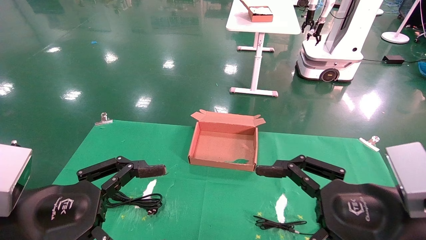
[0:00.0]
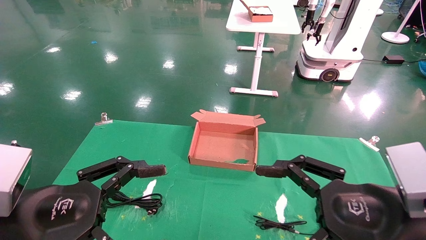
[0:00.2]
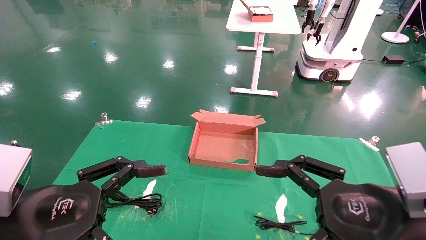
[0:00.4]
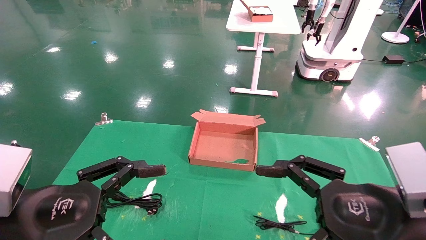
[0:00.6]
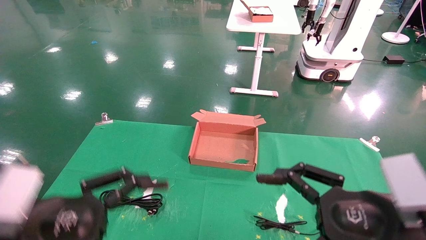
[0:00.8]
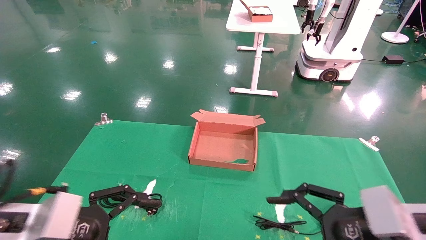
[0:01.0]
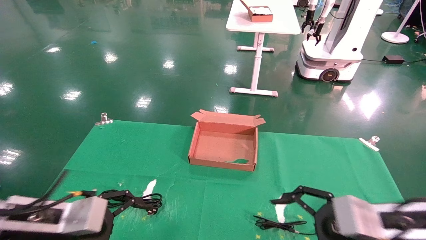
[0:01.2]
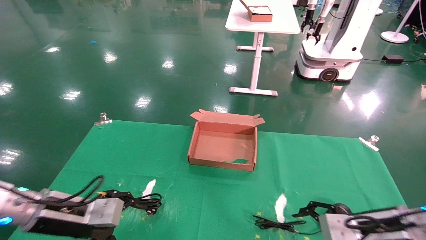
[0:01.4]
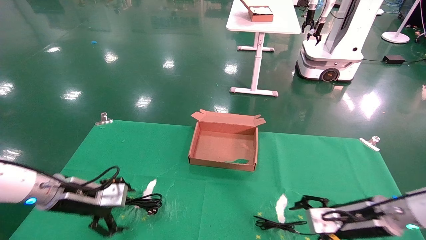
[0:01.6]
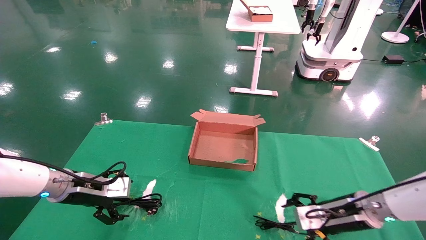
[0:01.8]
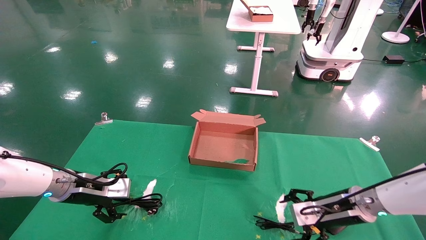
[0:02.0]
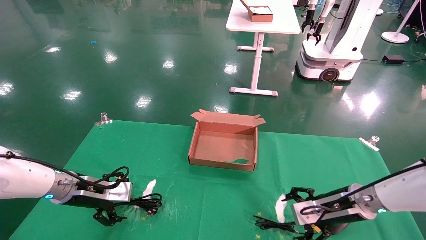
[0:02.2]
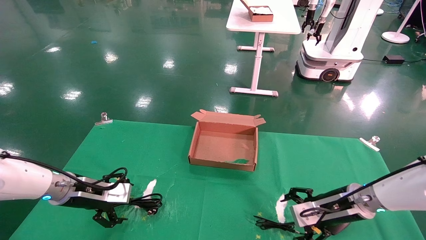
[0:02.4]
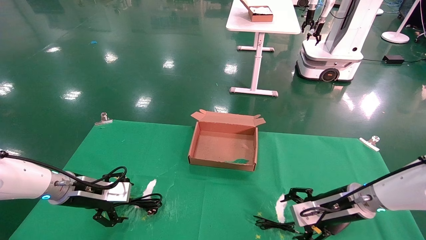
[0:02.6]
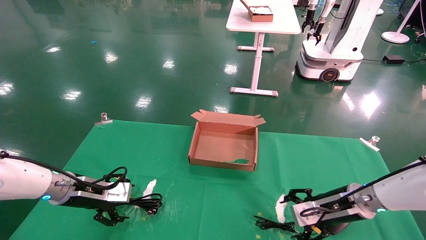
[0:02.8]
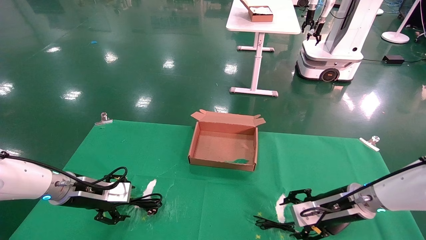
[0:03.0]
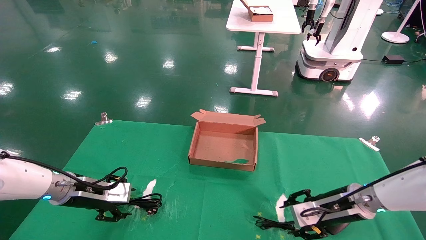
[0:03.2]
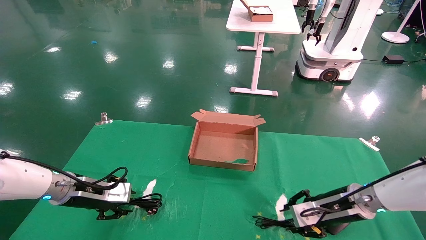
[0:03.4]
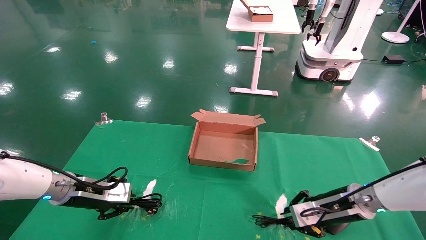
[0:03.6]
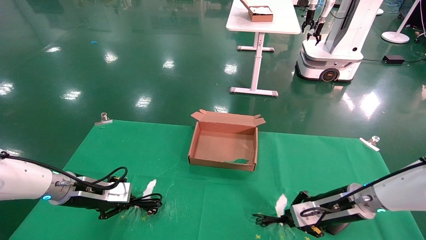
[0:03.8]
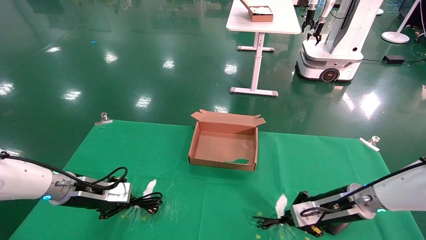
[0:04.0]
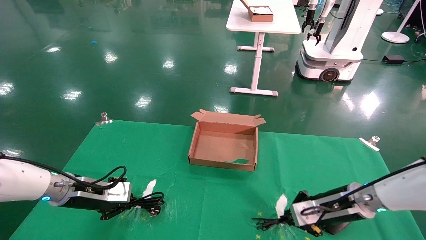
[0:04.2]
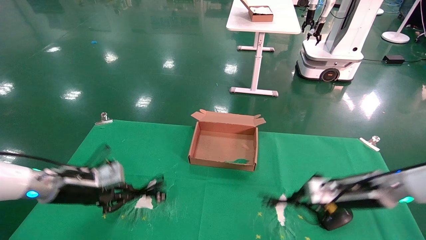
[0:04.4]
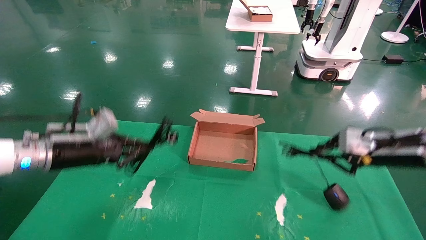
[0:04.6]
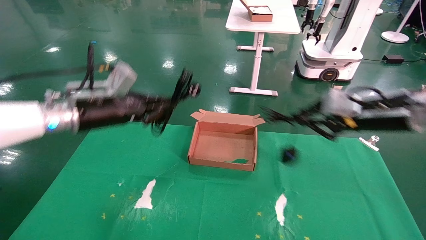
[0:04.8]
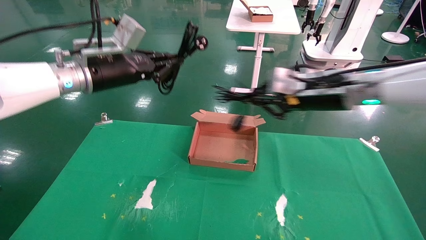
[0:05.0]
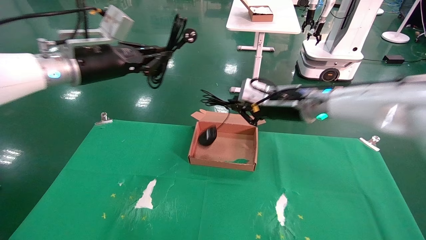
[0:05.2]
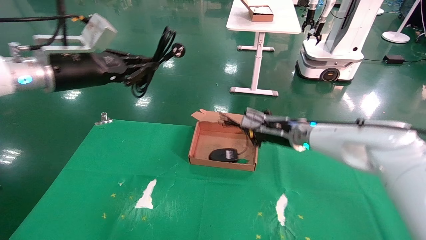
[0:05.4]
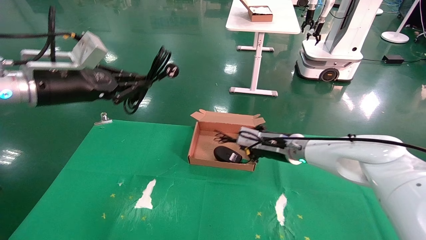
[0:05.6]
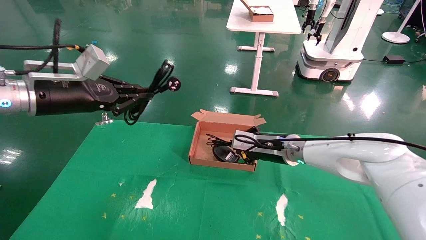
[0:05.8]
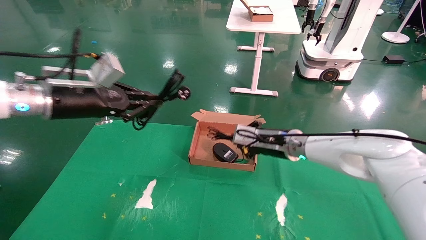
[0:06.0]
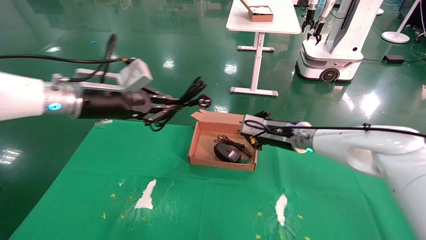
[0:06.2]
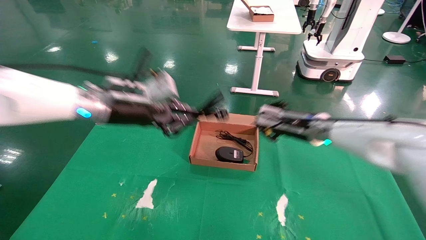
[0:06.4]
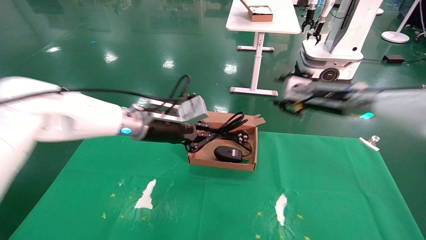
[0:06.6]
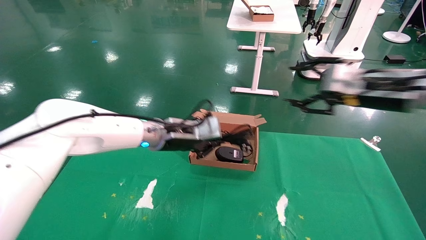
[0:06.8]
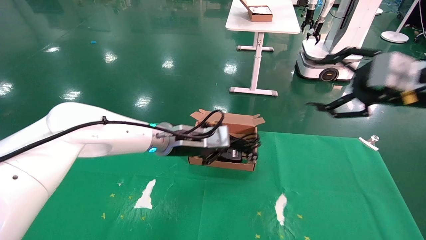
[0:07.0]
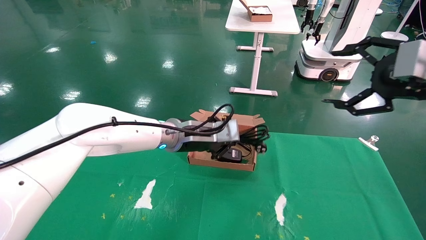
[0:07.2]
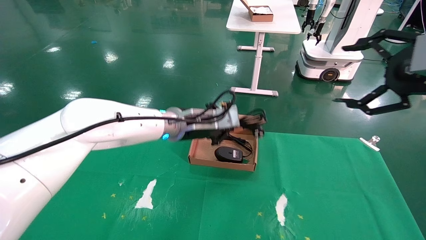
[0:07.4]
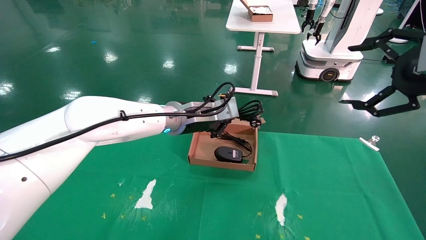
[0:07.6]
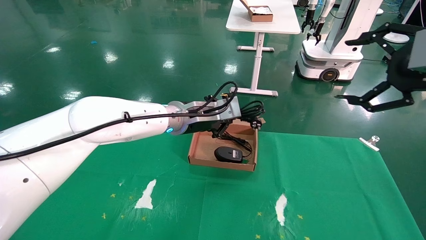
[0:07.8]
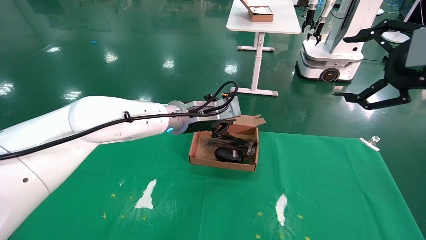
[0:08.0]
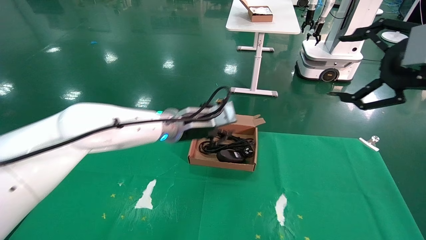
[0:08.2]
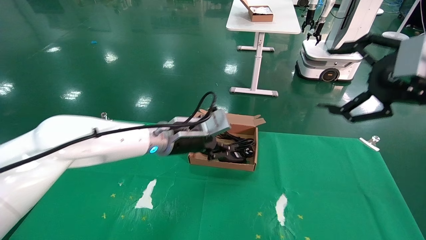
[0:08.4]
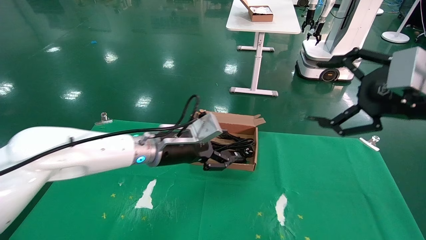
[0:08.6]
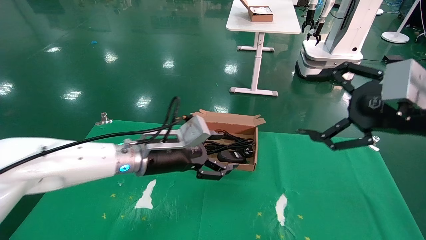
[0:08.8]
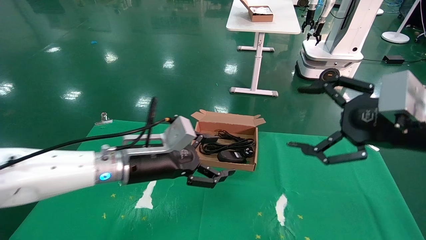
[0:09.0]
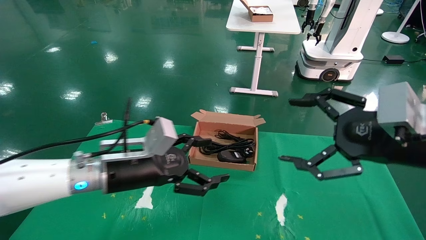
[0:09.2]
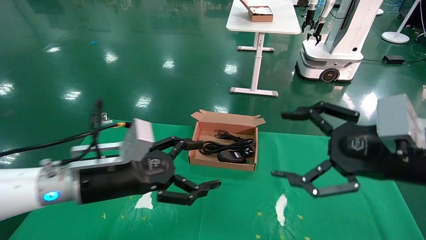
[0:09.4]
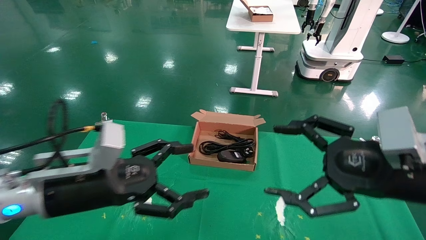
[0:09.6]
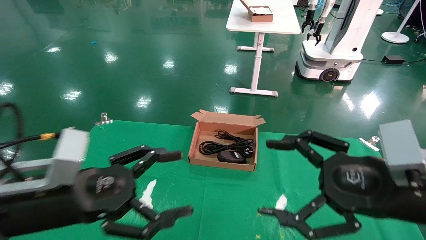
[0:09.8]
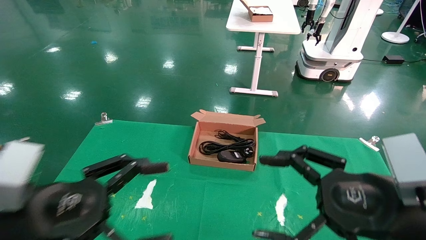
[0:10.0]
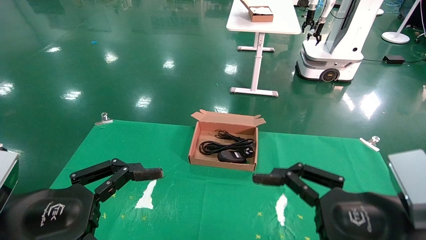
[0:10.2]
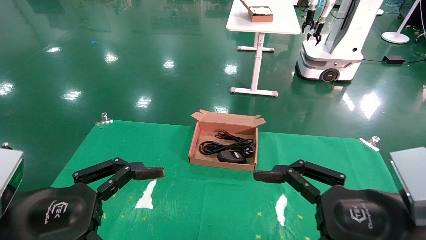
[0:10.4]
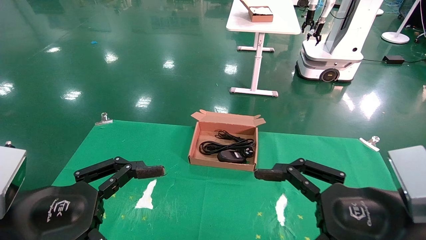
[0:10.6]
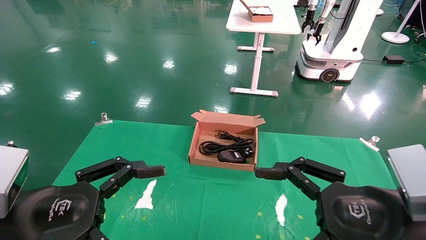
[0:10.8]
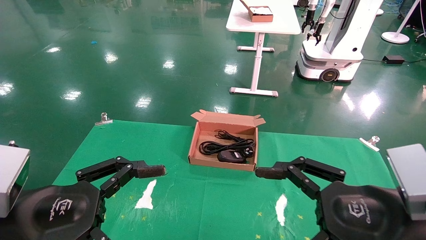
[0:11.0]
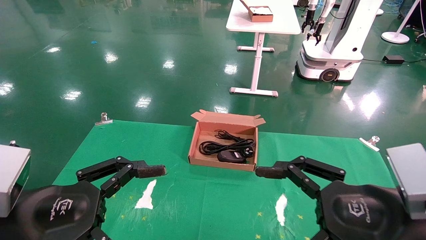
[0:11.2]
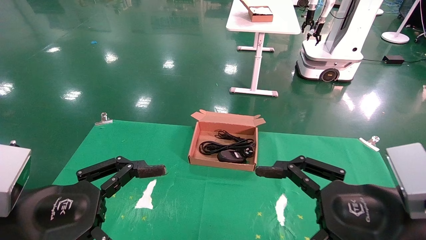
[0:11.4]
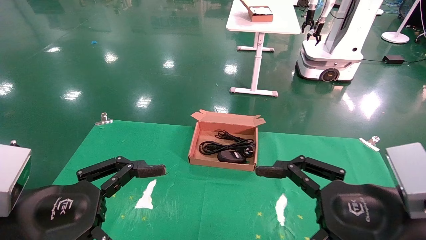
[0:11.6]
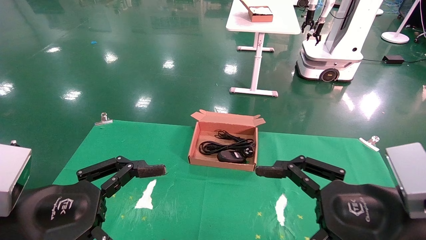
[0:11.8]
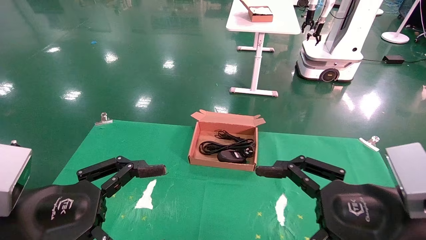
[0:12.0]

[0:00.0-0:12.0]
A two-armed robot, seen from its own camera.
Step, 1.0 to 3.8 s: Grab and lift both the mouse and power cord from the accessory packaging area at the same time.
Step, 4.0 to 8.2 s: Place the mouse and power cord into the box.
0.0 to 1.6 s: The right gripper is displaced forward and downward by about 20 cm. The left gripper goes about 20 cm forward.
1.6 to 3.0 s: The grippers move only a little.
3.0 to 4.4 s: The right gripper heads upward, covering approximately 5 cm, and closes up, while the left gripper closes its fingers.
4.4 to 6.0 s: The right gripper shifts approximately 20 cm to the left and forward, while the left gripper moves upward, some 15 cm.
6.0 to 7.6 s: The left gripper travels to the right by approximately 20 cm, while the right gripper goes some 35 cm backward, to the right and upward, and opens.
7.6 to 9.0 s: The right gripper goes some 10 cm downward and to the left. The left gripper is displaced backward, to the left and downward by about 15 cm, and opens its fingers.
9.0 to 10.4 s: The right gripper heads downward, backward and to the left, covering approximately 15 cm, while the left gripper goes about 20 cm backward and to the left.
10.4 to 12.0 s: The two grippers keep their place.

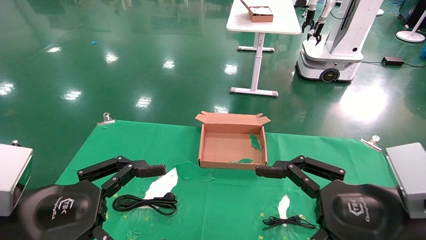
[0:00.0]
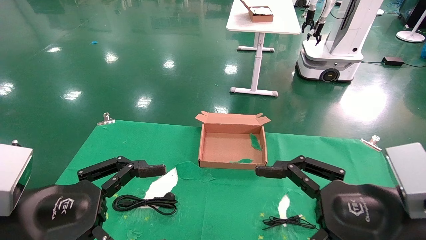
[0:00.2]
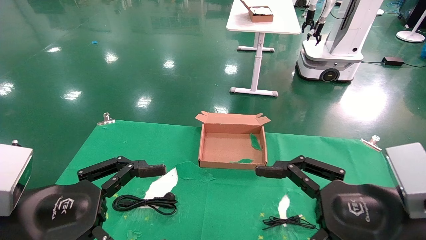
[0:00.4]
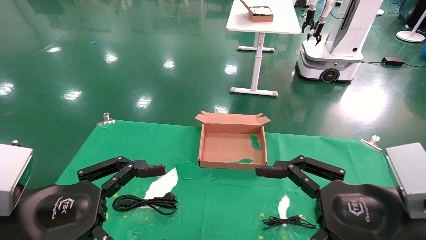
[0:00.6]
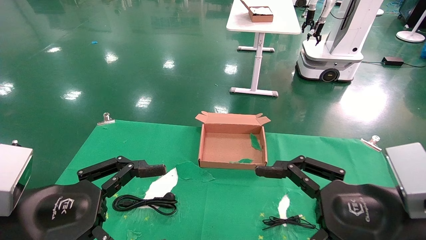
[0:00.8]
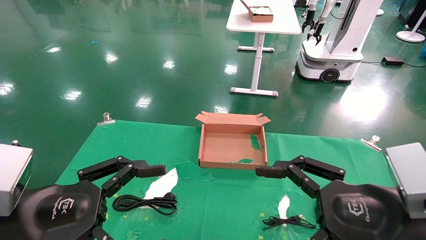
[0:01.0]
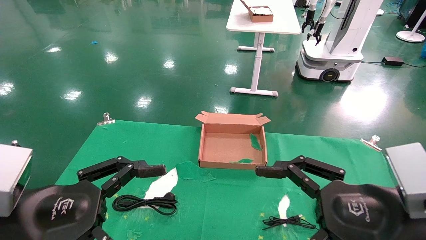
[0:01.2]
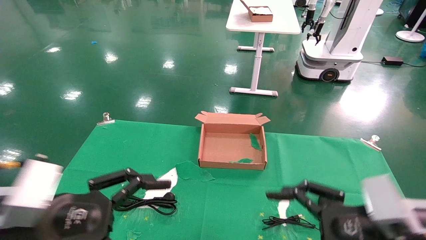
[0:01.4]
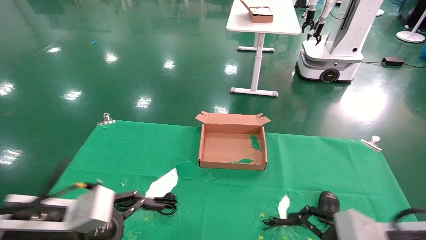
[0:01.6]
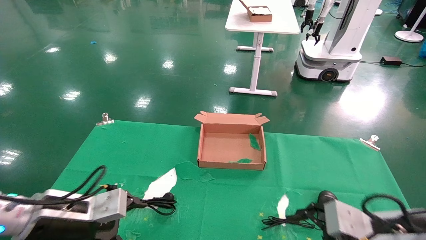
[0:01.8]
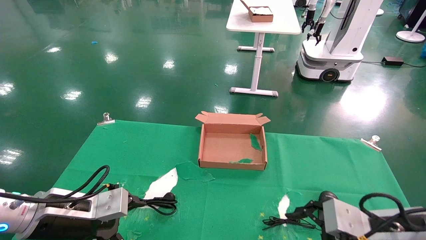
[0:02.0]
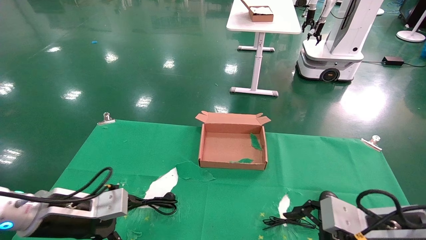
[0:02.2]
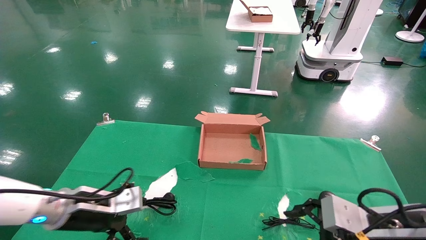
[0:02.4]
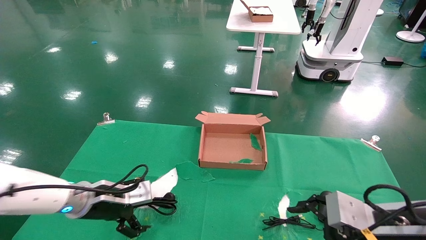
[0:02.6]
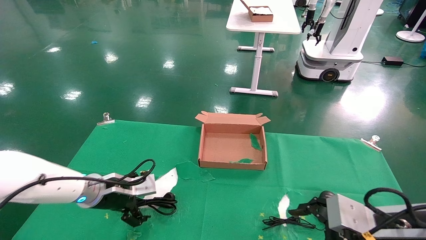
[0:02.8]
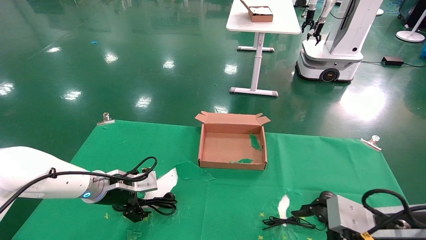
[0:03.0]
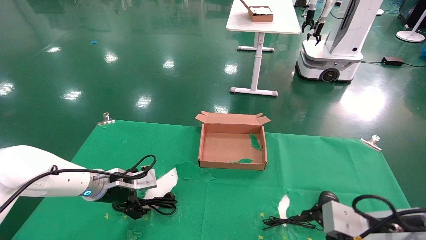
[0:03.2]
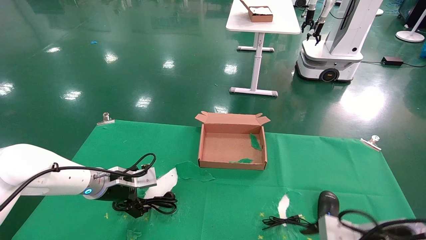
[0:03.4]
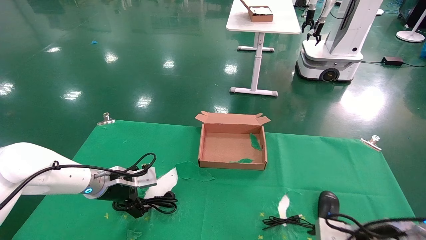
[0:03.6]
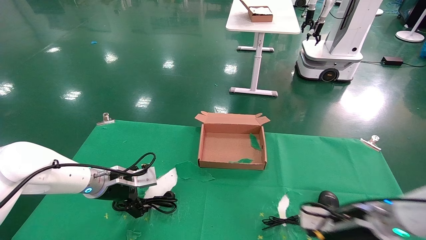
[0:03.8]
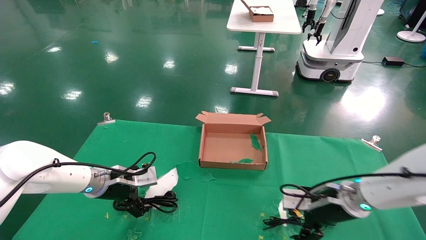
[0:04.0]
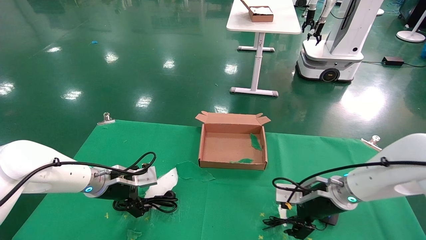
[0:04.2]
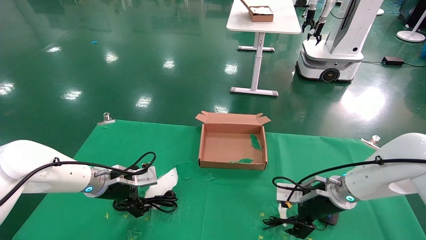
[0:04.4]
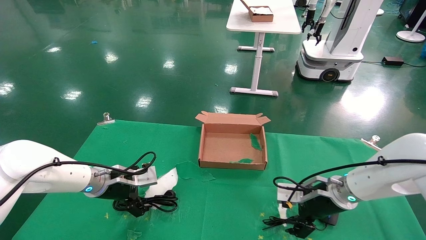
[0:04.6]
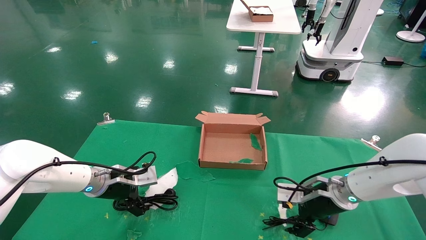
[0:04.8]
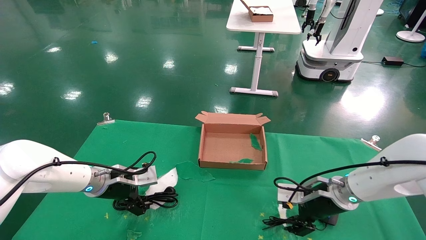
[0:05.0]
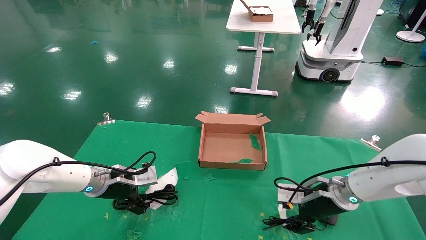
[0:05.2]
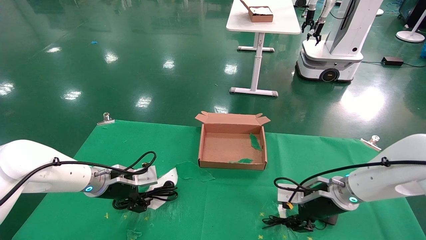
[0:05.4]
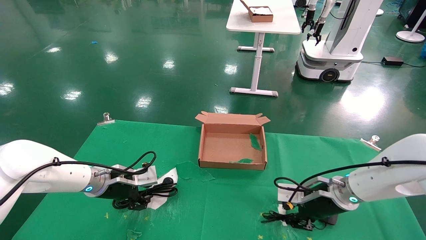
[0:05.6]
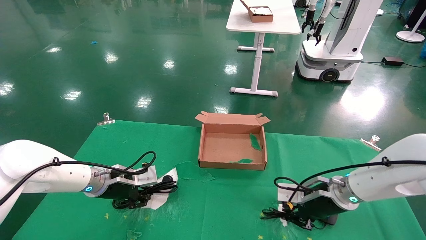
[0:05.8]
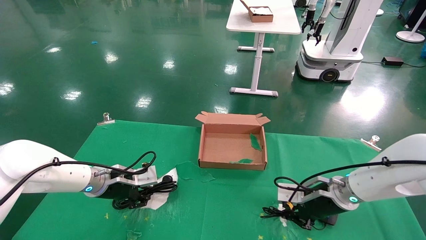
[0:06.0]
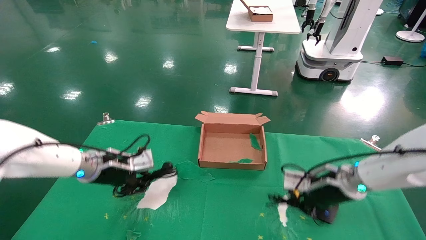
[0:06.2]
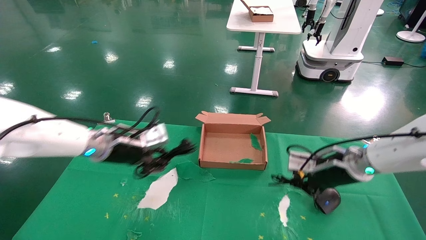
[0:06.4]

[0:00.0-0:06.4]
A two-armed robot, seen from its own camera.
Step, 1.2 to 6.4 s: Grab and lift both the mouse and power cord from the accessory packaging area at the same time.
0.0 to 1.6 s: The left gripper heads forward and downward, covering about 10 cm. The right gripper goes some 5 cm downward.
1.6 to 3.2 s: The left gripper is displaced forward by about 20 cm.
3.2 to 4.8 s: The right gripper heads forward, covering about 15 cm.
4.8 to 6.4 s: The left gripper is displaced upward and to the right by approximately 10 cm, and closes. Meanwhile the right gripper travels upward by approximately 10 cm, and closes its fingers.
